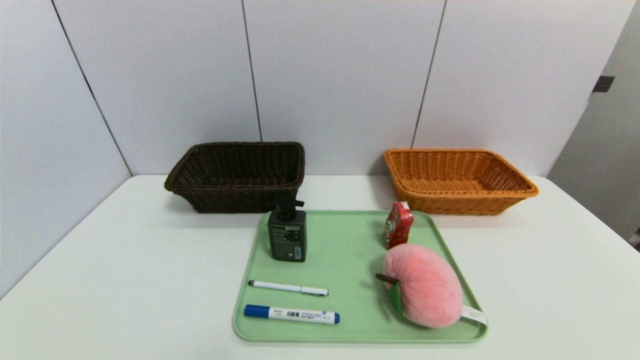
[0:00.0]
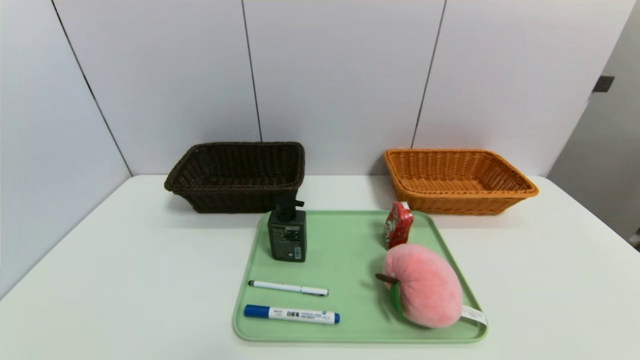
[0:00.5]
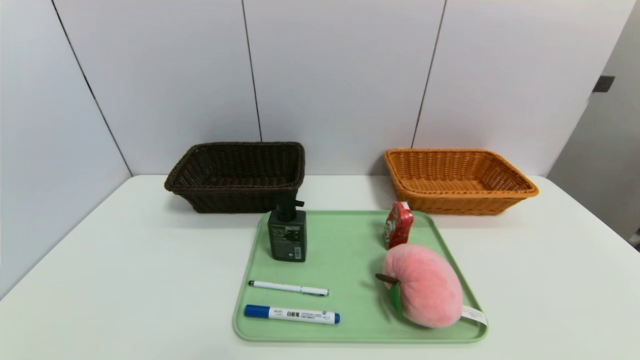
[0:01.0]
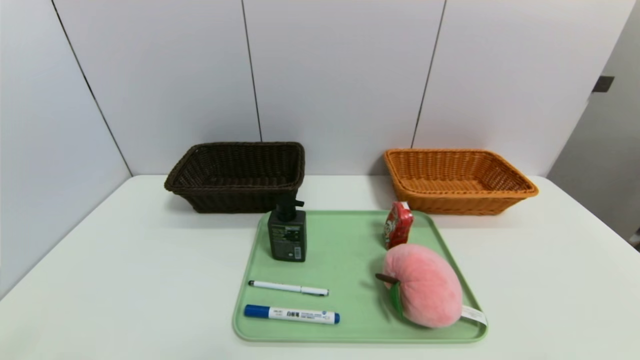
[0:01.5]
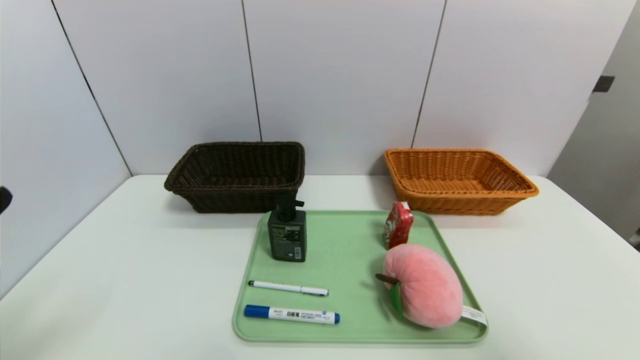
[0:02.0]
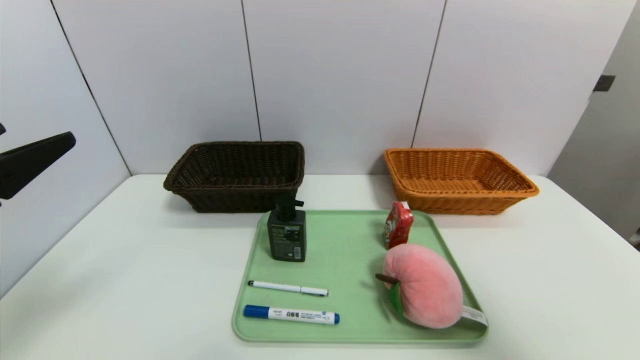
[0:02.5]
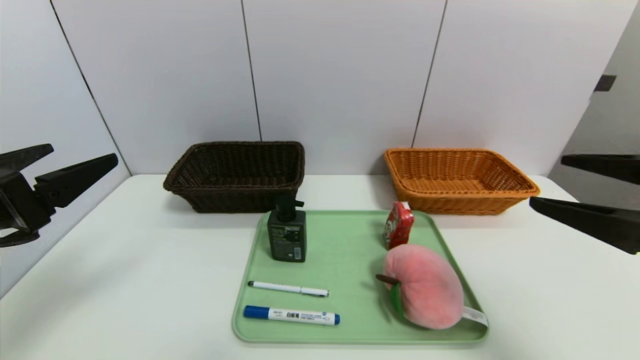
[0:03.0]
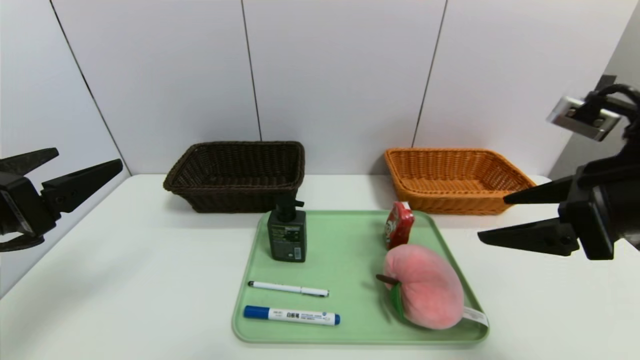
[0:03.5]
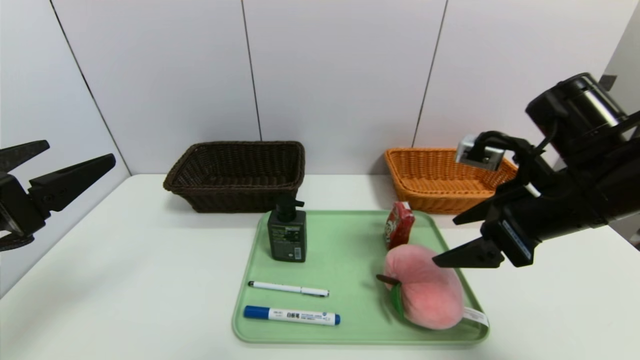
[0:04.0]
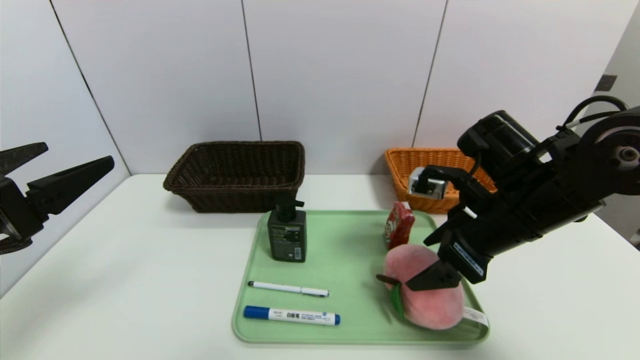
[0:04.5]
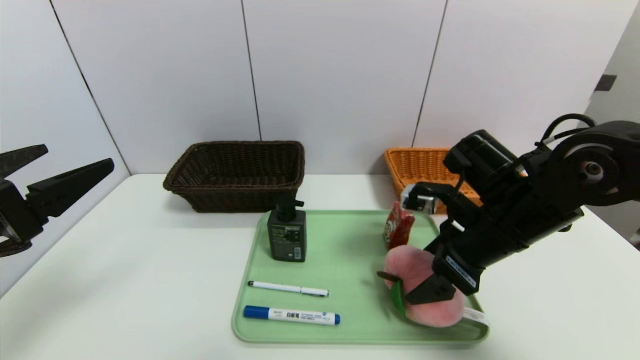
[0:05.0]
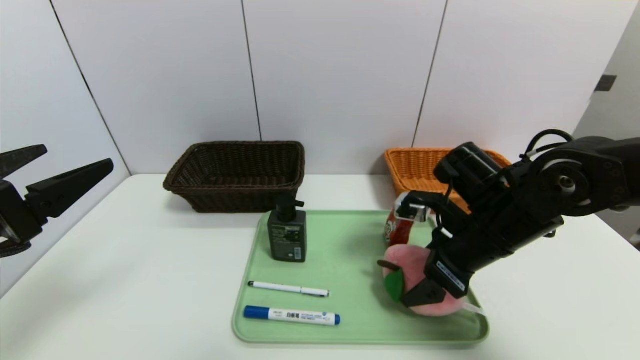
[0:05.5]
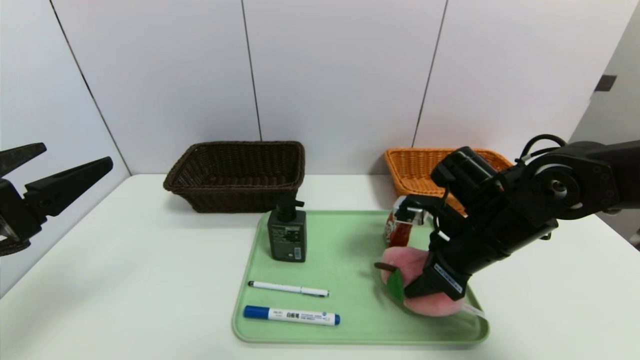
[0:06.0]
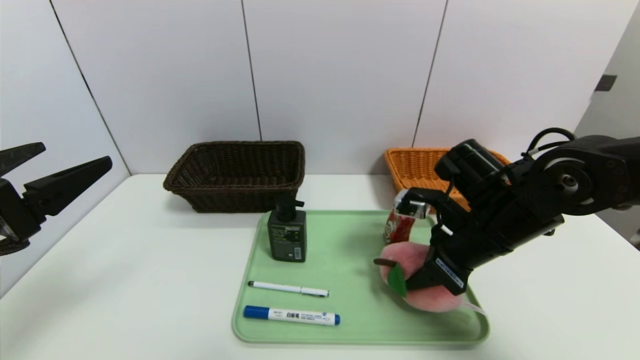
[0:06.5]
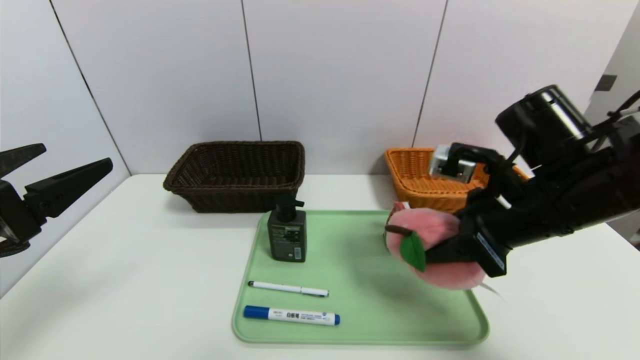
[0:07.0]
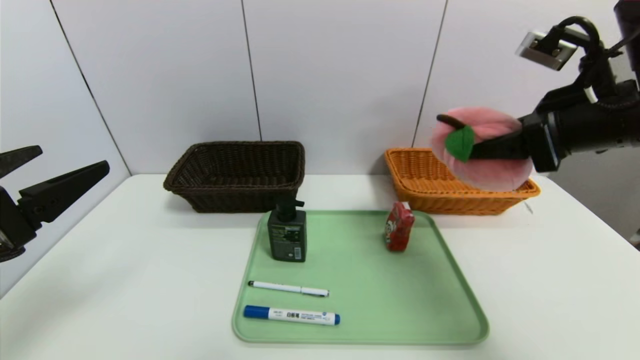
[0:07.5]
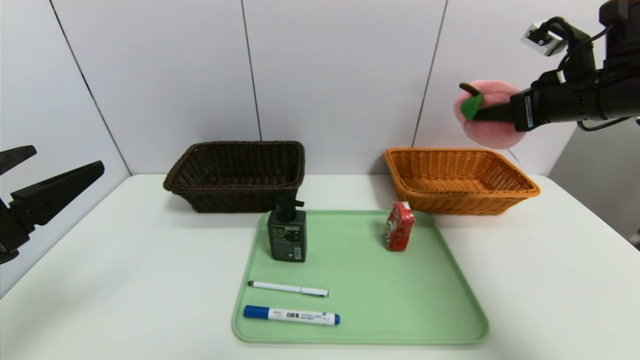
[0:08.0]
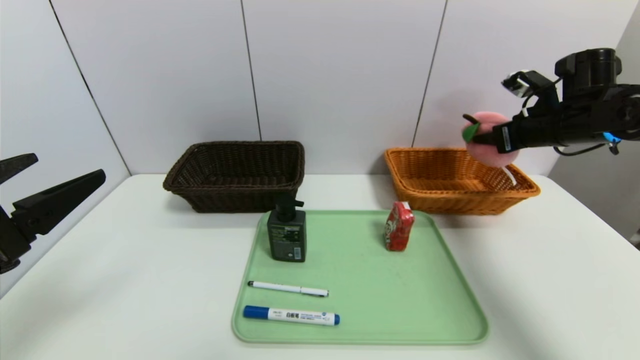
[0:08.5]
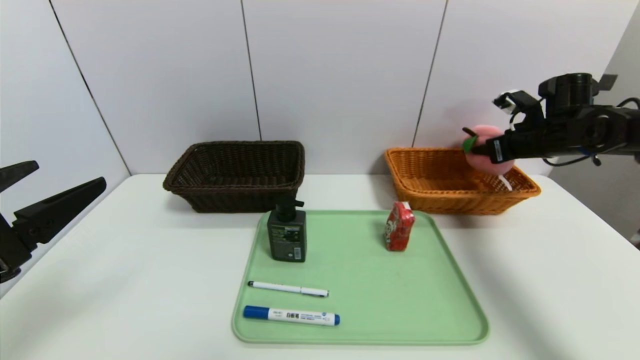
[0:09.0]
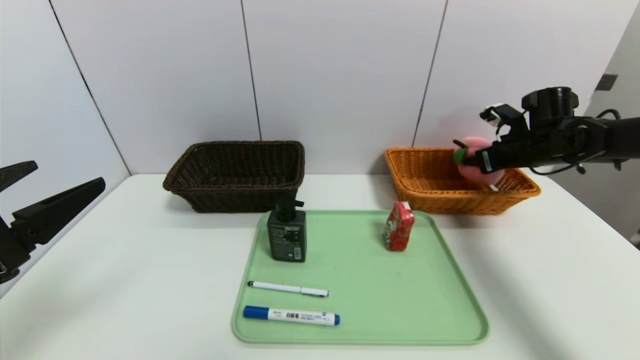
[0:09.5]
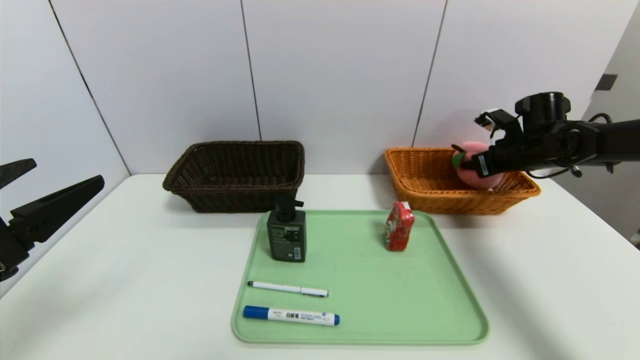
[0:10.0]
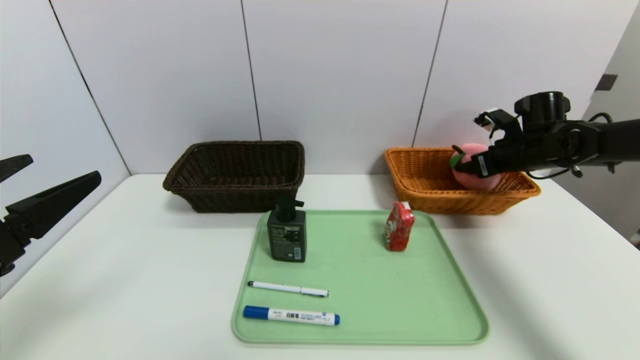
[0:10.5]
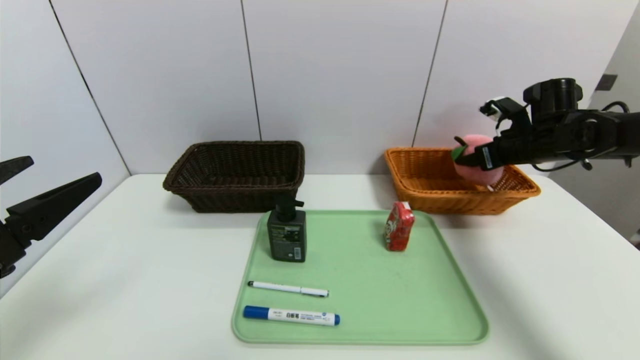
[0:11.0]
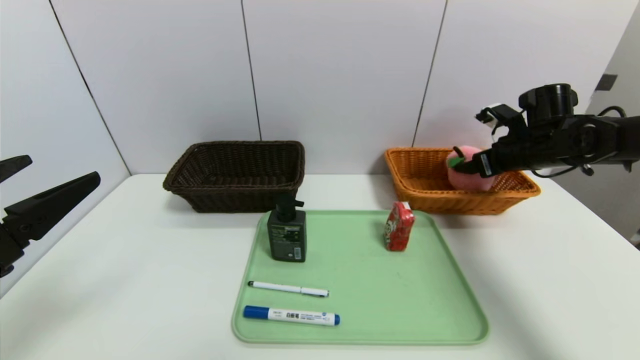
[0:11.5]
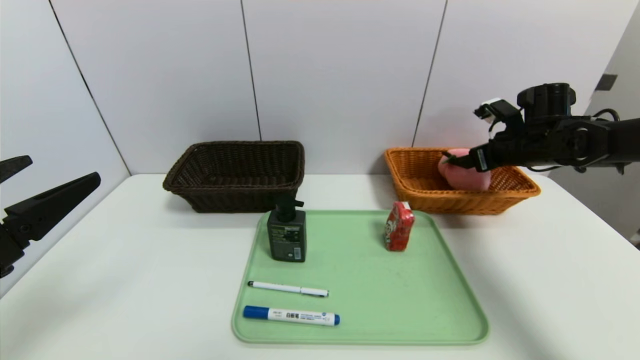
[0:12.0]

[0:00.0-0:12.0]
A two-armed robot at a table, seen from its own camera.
Task of the whole recording: place the food in the right basket with the right gripper, and place the non food items in the left basket with the left gripper.
0:00.0 to 0:02.0: Both grippers move upward, roughly 20 cm.
0:02.0 to 0:04.0: The left gripper is displaced forward by some 10 cm. Meanwhile the right gripper is displaced forward and to the left by roughly 25 cm.
0:04.0 to 0:06.0: The right gripper goes about 10 cm downward, and closes up.
0:06.0 to 0:08.0: The right gripper travels upward, to the right and forward by about 20 cm.
0:08.0 to 0:10.0: The right gripper goes roughly 15 cm downward and forward.
0:10.0 to 0:12.0: The right gripper opens.

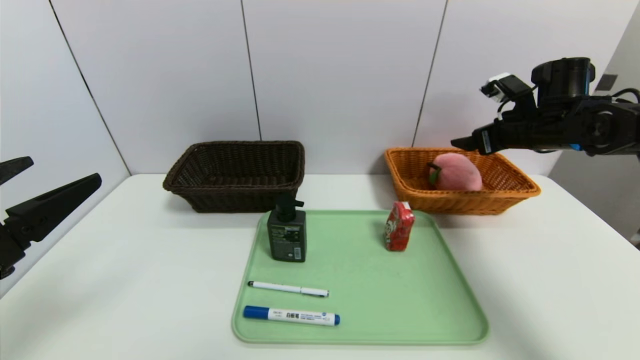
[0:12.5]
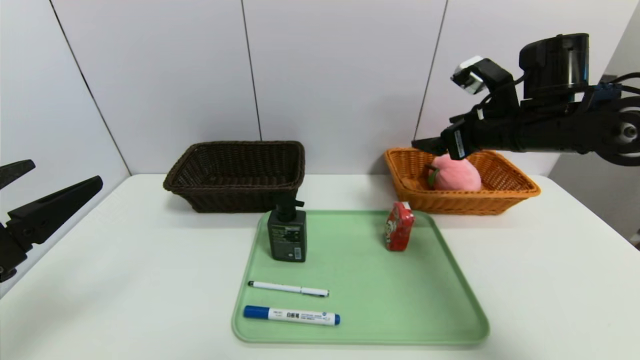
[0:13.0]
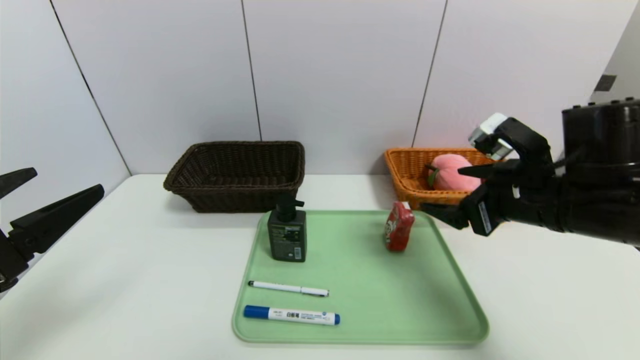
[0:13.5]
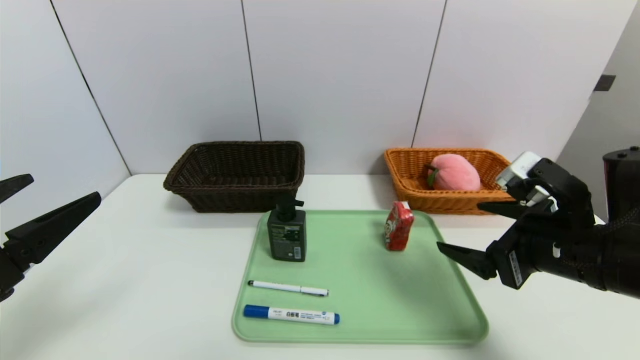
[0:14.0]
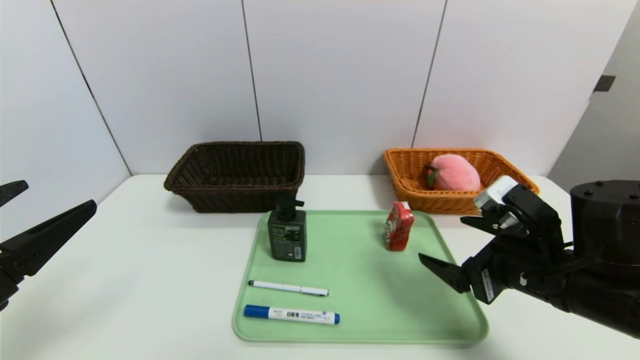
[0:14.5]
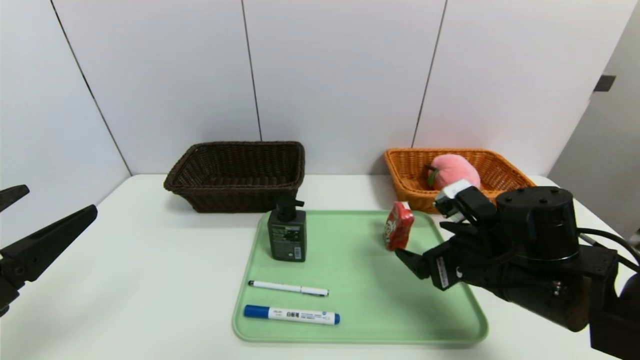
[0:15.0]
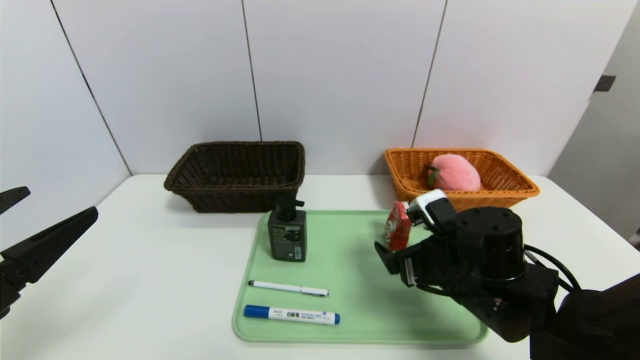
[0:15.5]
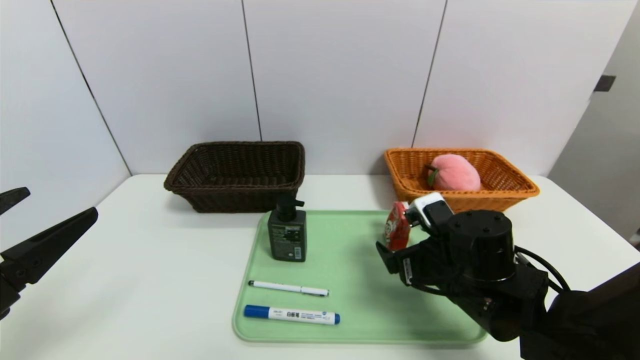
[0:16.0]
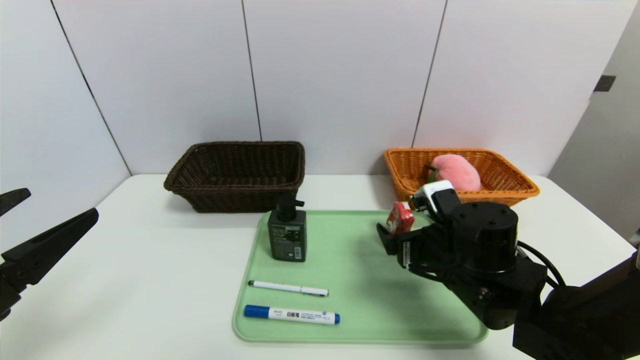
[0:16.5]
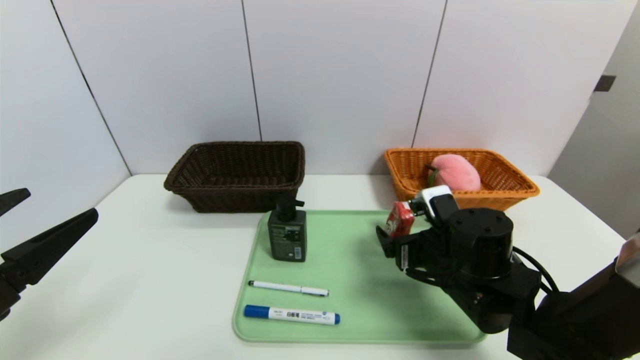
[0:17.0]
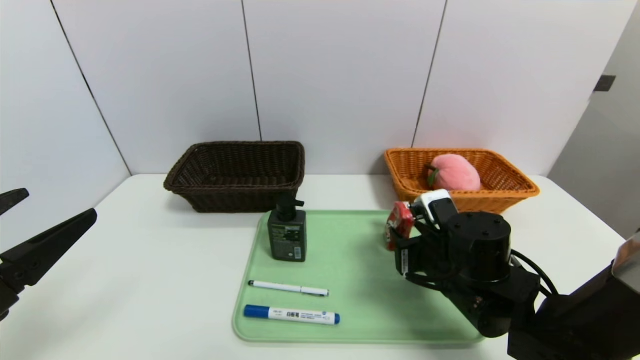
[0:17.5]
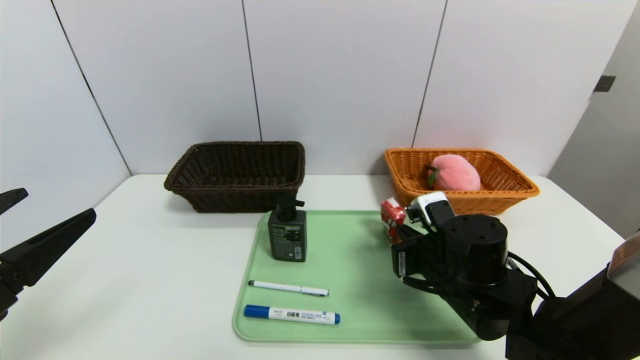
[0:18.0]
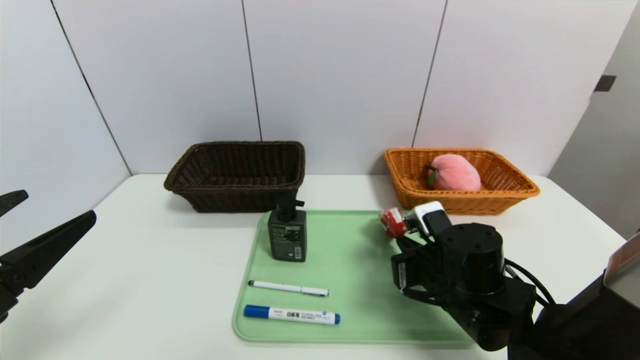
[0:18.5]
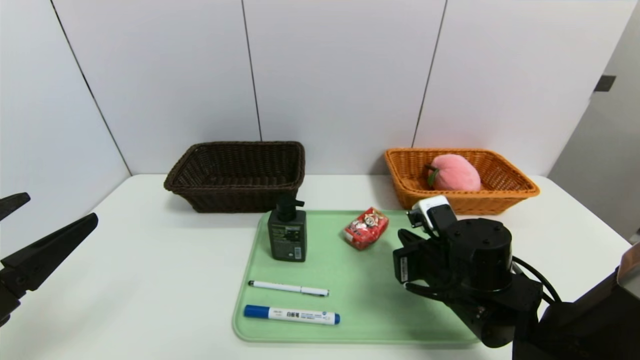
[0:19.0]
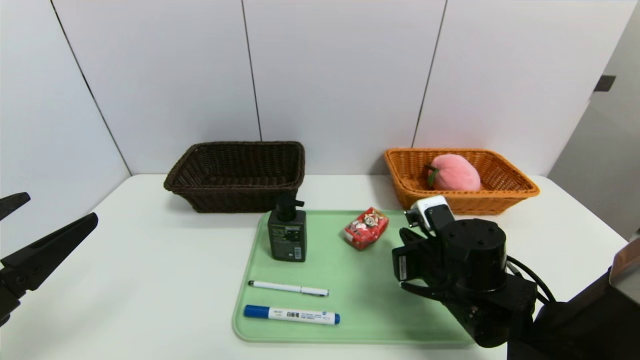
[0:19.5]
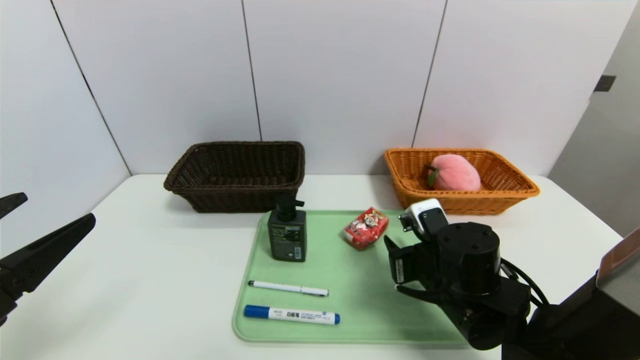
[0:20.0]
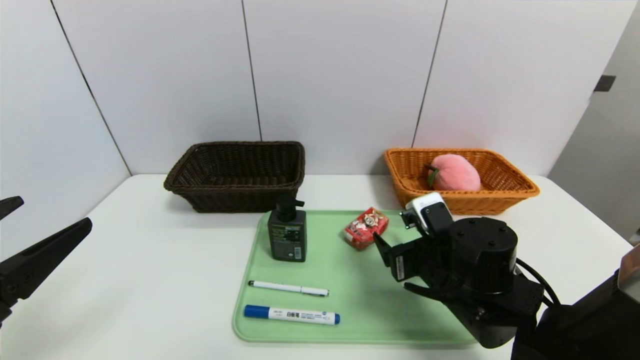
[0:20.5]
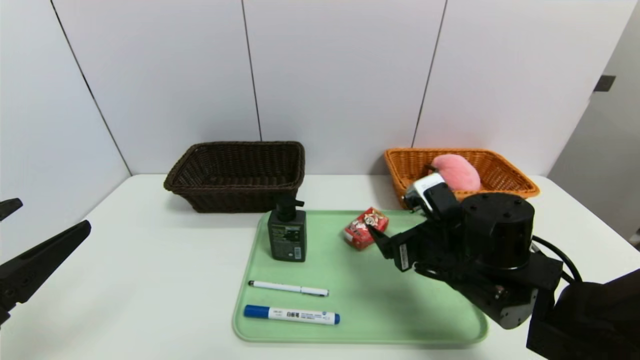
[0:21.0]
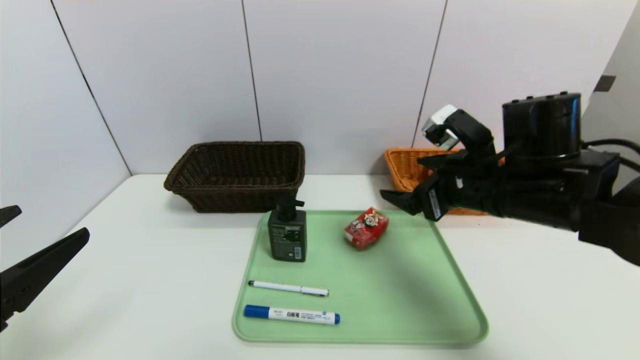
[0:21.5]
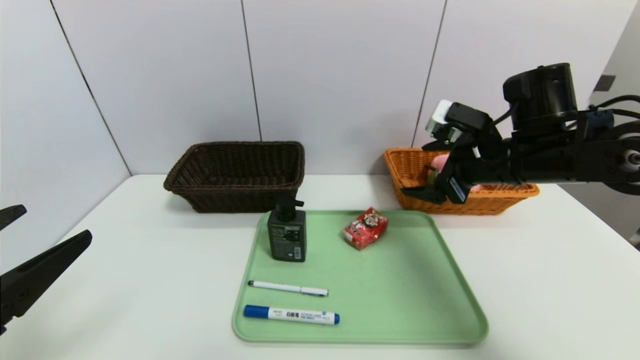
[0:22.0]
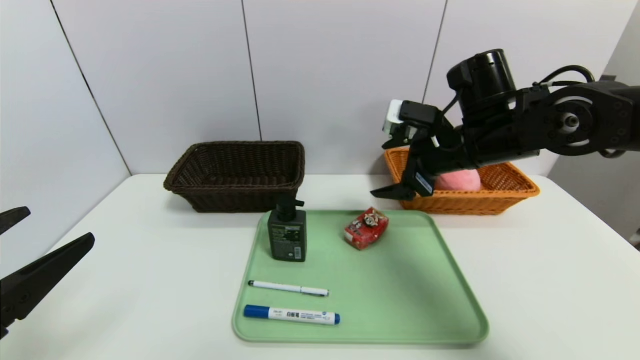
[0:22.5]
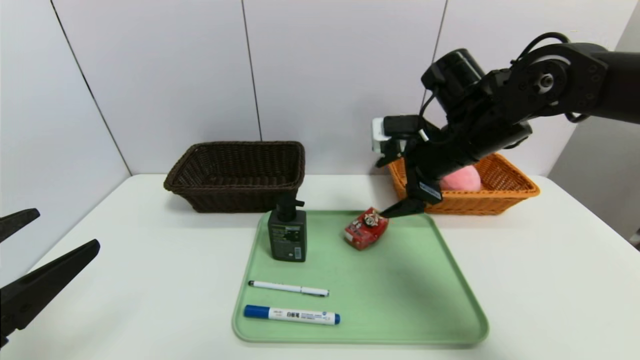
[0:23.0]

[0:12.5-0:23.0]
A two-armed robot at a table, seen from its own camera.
Task of the whole recording: place the food in the right basket with the right gripper, and place the non food items in the left basket with the left gripper.
0:12.5 to 0:14.5: The right gripper shifts approximately 25 cm backward and to the left.
0:14.5 to 0:16.5: The right gripper travels to the left, downward and forward by approximately 10 cm.
0:16.5 to 0:19.0: The right gripper closes up.
0:19.0 to 0:21.0: The right gripper opens its fingers.
0:21.0 to 0:23.0: The right gripper moves upward and forward, roughly 15 cm.
